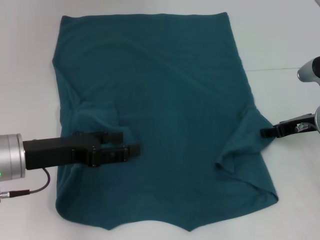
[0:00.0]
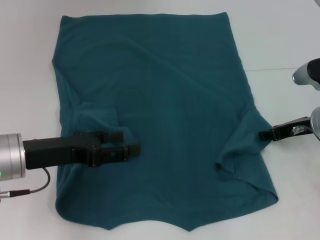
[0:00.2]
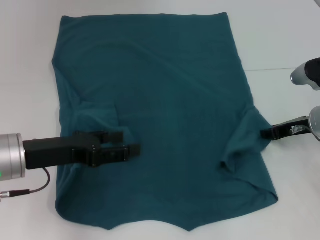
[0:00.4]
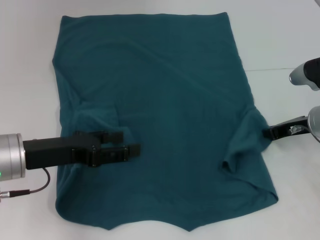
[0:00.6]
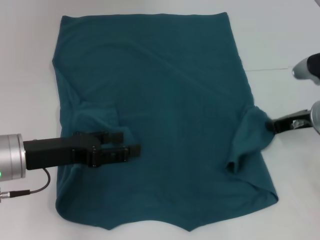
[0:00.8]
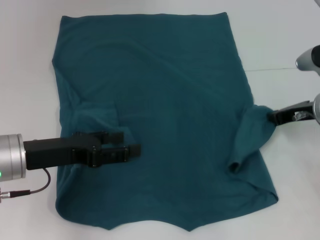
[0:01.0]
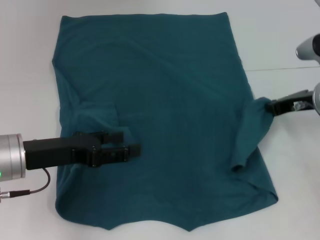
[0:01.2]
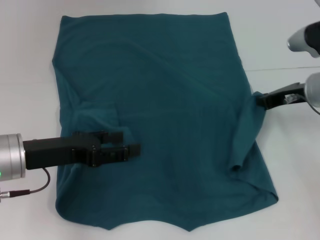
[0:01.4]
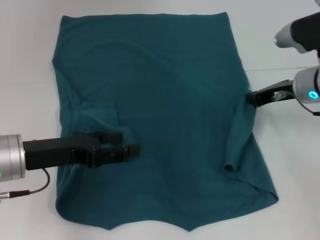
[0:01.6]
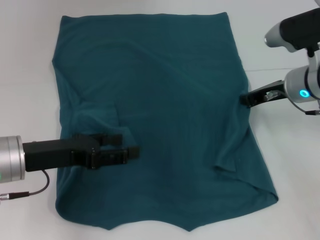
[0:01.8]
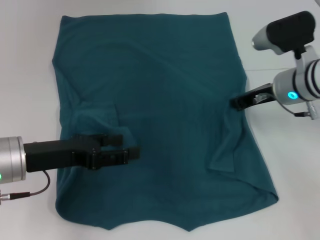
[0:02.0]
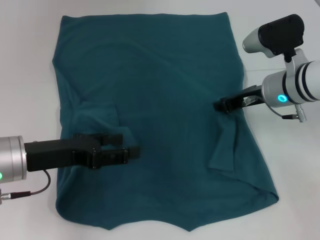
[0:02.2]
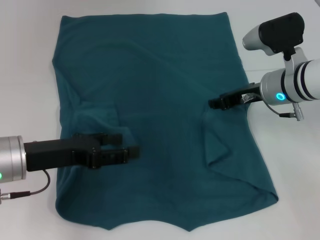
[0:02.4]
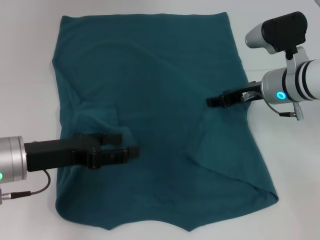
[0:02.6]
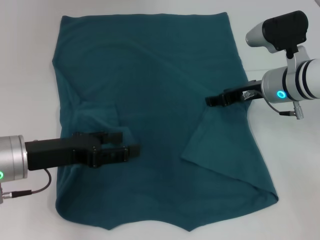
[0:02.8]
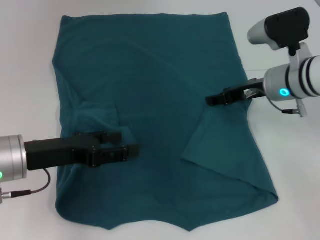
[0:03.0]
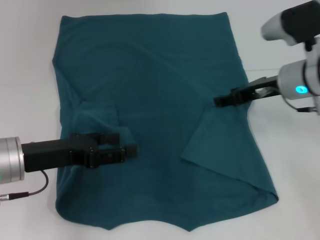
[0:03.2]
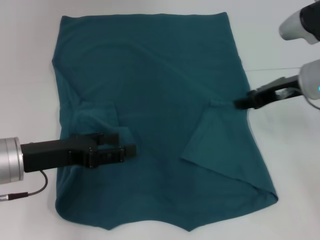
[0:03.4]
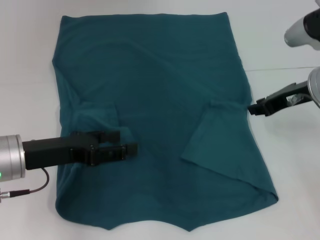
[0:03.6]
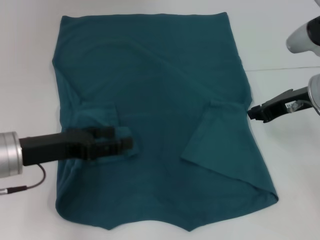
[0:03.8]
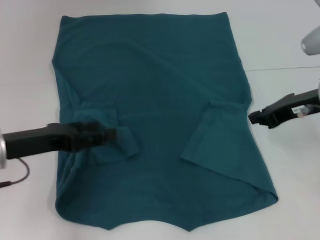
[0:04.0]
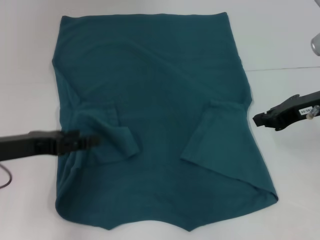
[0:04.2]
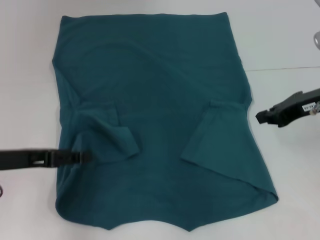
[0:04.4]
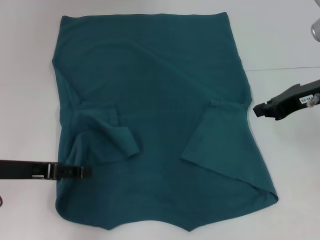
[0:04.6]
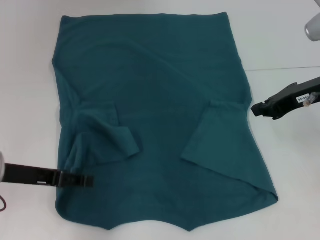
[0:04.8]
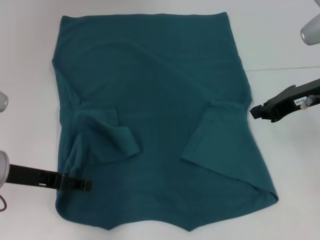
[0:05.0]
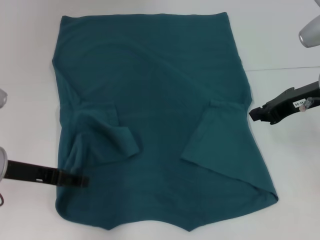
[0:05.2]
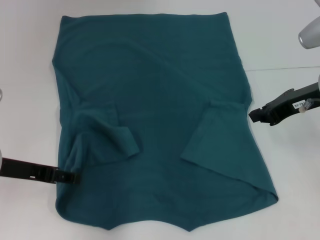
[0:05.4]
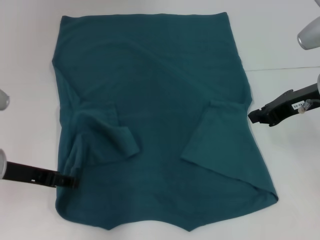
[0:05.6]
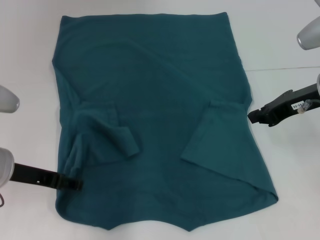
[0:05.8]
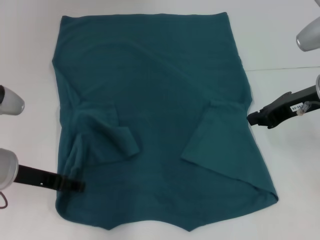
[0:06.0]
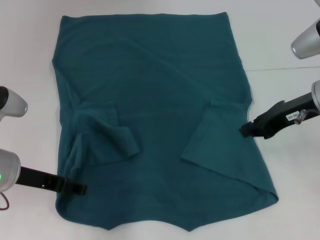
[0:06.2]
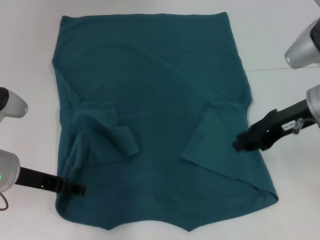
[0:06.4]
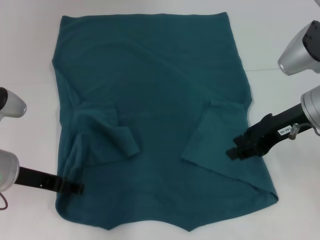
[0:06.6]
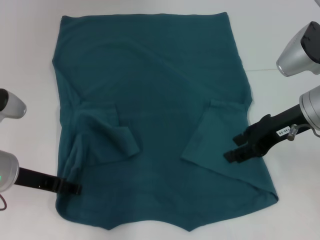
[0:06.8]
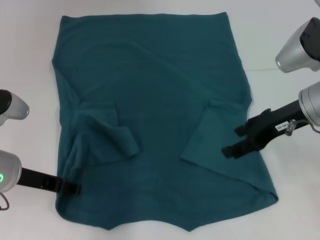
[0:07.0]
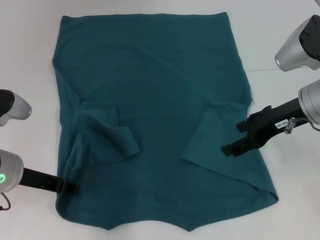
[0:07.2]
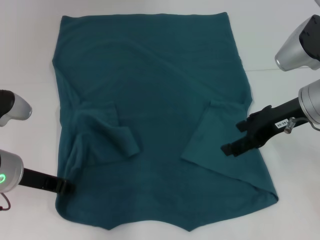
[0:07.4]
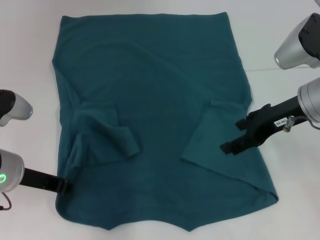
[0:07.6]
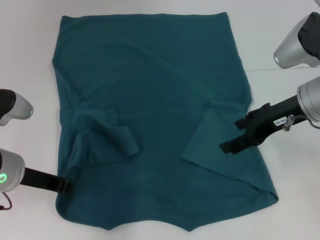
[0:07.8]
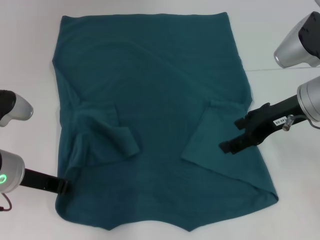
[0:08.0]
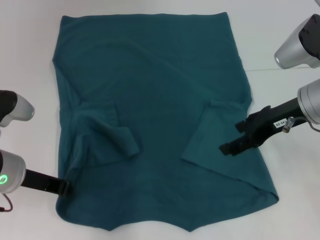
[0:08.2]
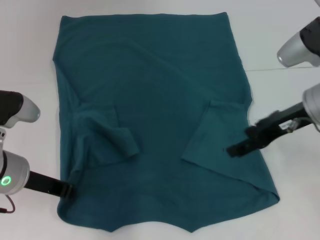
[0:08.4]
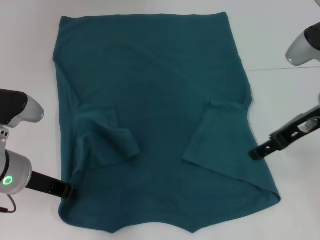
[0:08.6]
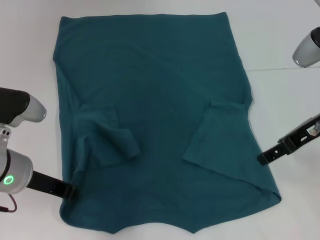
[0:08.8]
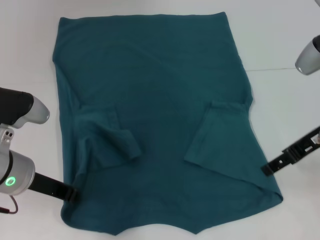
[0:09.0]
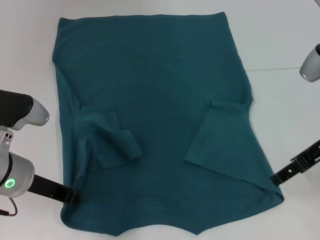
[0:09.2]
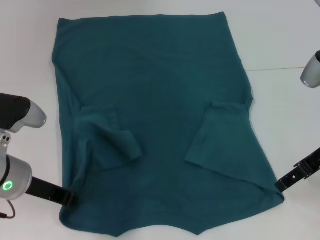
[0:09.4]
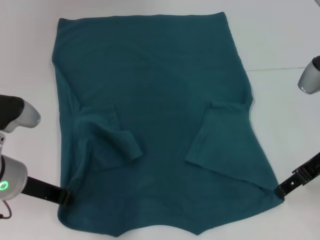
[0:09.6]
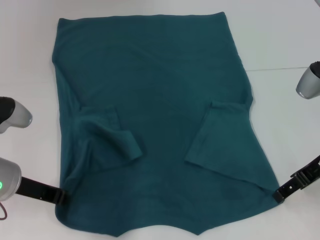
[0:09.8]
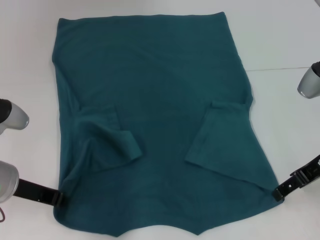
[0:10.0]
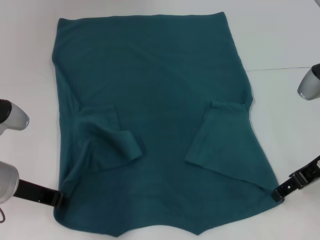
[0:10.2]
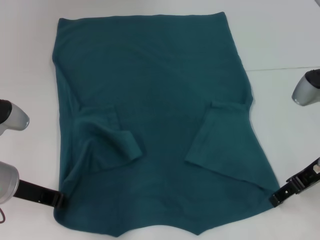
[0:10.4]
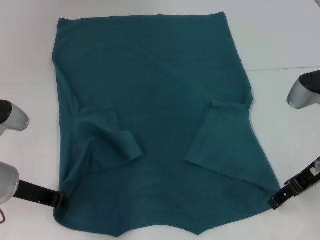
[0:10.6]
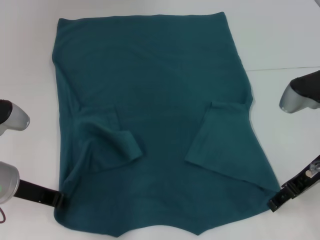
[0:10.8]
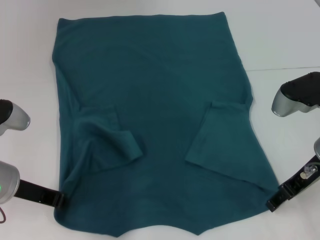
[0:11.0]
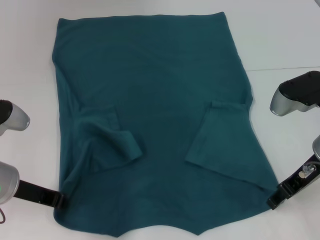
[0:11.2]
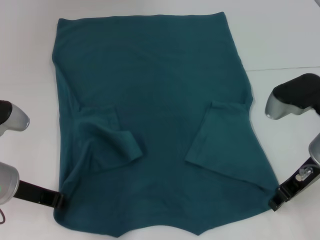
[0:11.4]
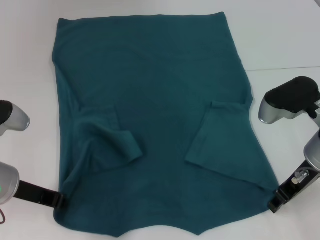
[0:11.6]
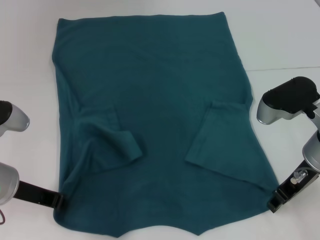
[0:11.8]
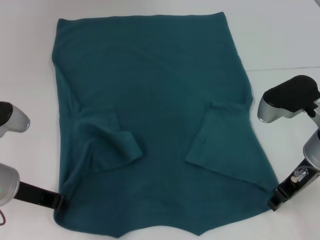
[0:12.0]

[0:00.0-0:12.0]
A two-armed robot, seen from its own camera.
Step, 0:00.0 to 0:02.8: Fold the bottom right sleeve to the right.
Step, 0:03.0 to 0:07.6: Grab the bottom left corner with your left hand.
0:00.0 to 0:01.6: The right gripper shifts by some 5 cm, and closes its fingers.
0:01.6 to 0:03.0: The right gripper opens.
0:03.0 to 0:04.4: The right gripper is displaced to the right and backward by roughly 10 cm, and closes up.
0:06.0 to 0:07.6: The left gripper closes; the right gripper opens up.
0:09.0 to 0:10.4: The grippers stay close to where they were, moving slightly.
0:10.4 to 0:12.0: The right gripper closes its fingers.

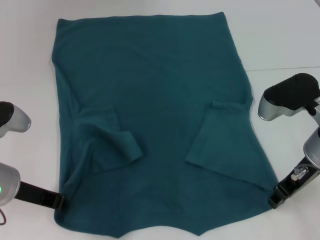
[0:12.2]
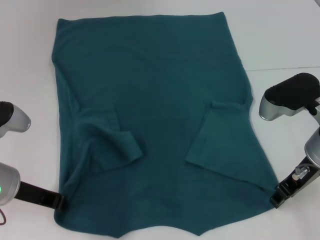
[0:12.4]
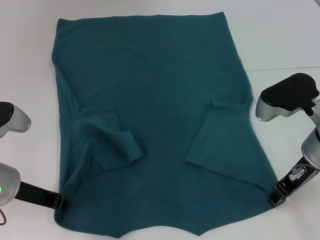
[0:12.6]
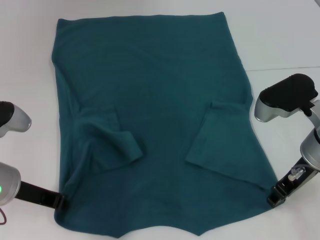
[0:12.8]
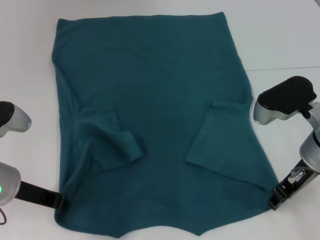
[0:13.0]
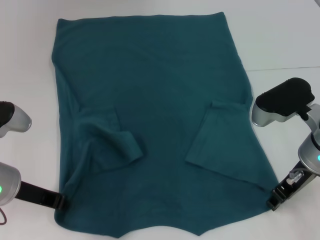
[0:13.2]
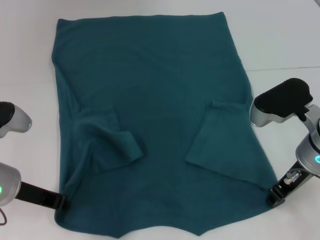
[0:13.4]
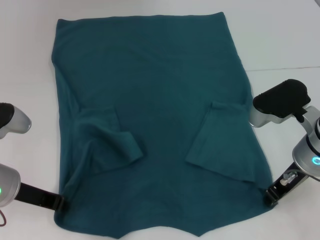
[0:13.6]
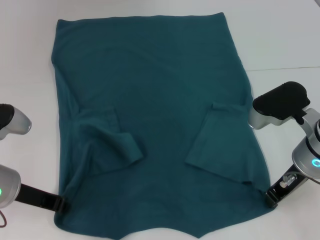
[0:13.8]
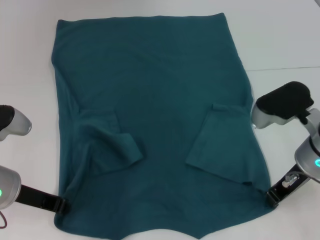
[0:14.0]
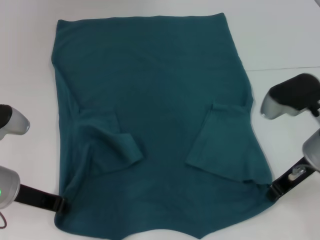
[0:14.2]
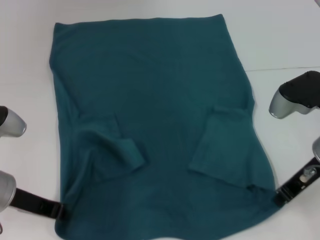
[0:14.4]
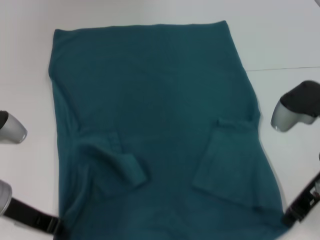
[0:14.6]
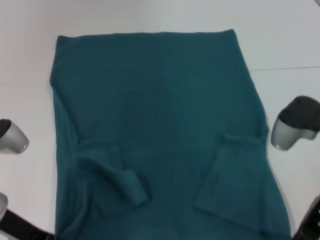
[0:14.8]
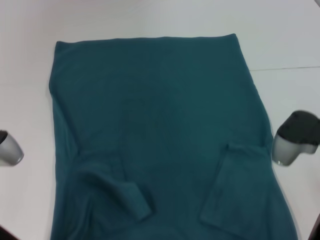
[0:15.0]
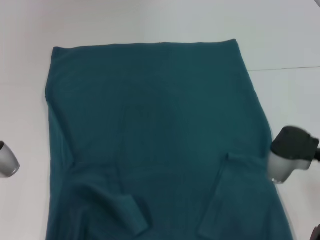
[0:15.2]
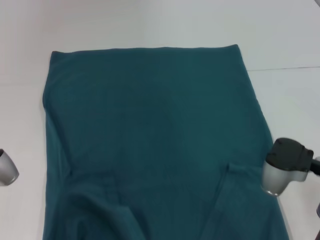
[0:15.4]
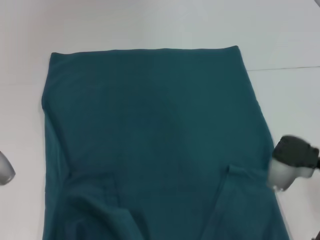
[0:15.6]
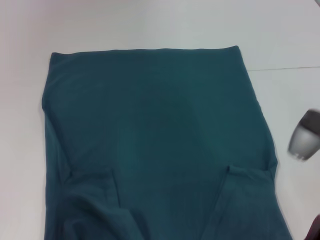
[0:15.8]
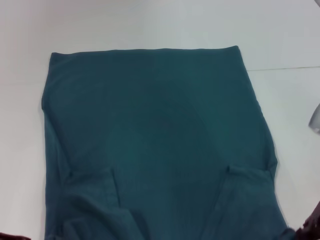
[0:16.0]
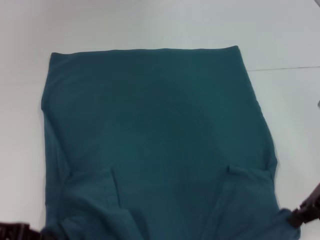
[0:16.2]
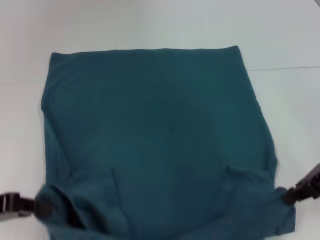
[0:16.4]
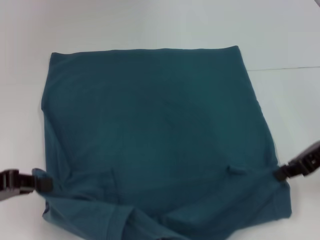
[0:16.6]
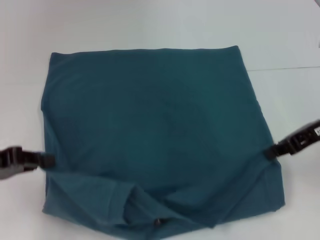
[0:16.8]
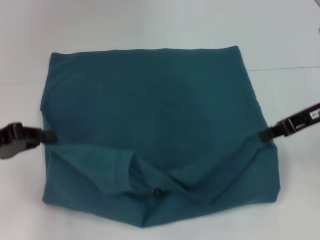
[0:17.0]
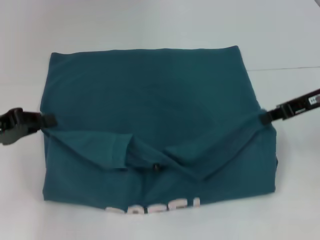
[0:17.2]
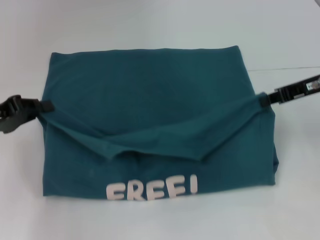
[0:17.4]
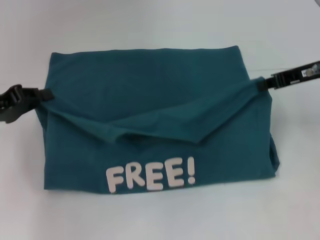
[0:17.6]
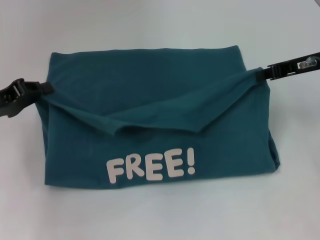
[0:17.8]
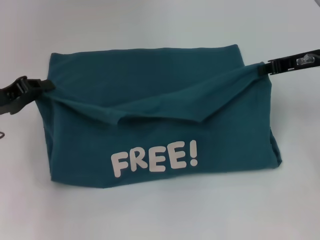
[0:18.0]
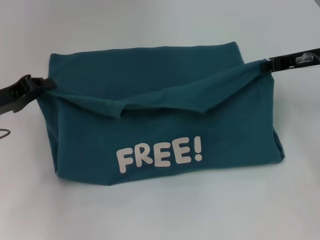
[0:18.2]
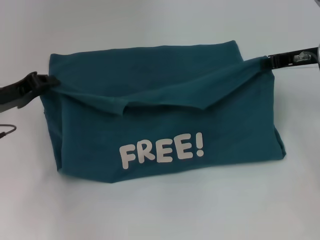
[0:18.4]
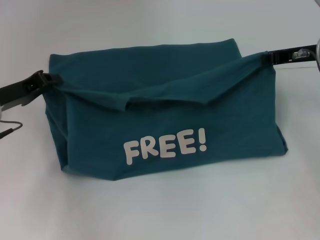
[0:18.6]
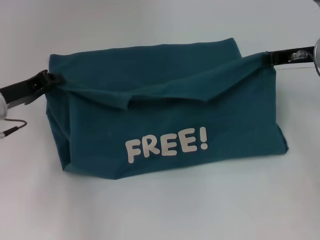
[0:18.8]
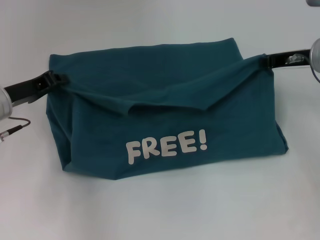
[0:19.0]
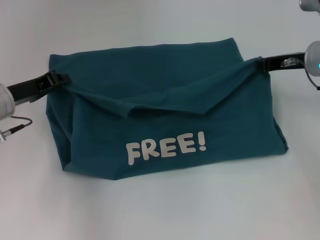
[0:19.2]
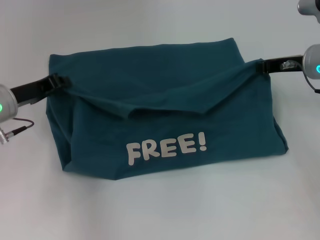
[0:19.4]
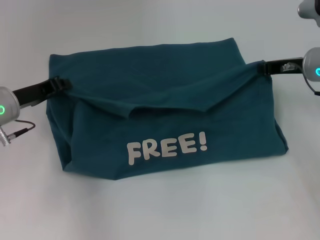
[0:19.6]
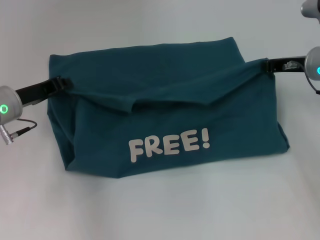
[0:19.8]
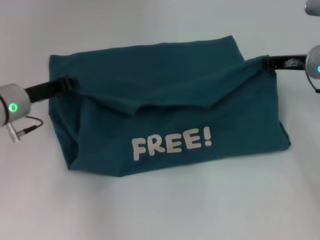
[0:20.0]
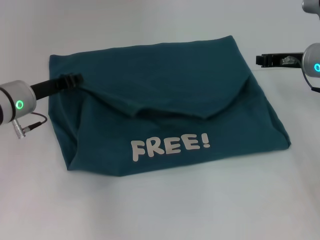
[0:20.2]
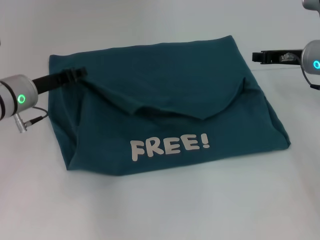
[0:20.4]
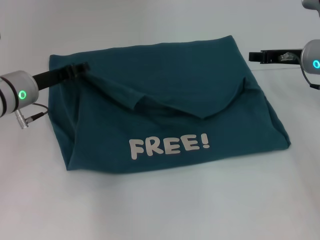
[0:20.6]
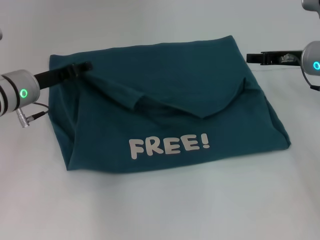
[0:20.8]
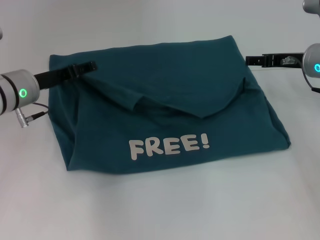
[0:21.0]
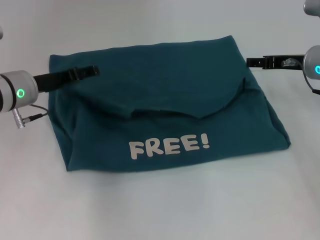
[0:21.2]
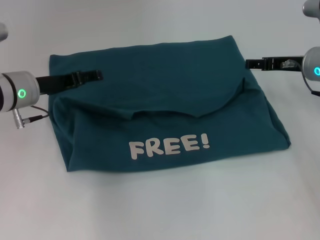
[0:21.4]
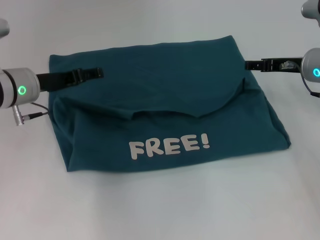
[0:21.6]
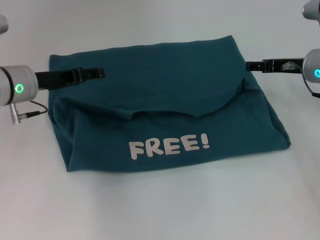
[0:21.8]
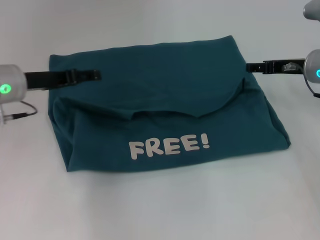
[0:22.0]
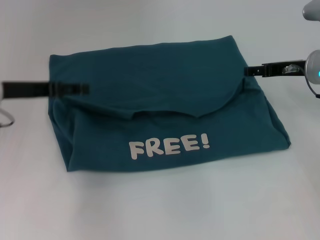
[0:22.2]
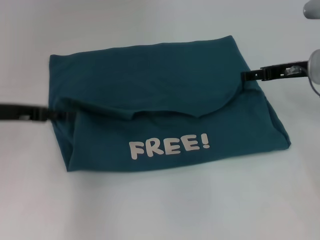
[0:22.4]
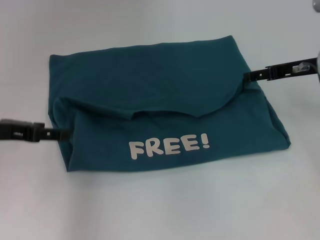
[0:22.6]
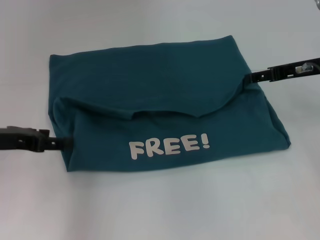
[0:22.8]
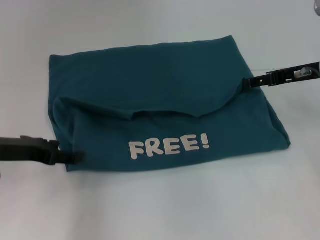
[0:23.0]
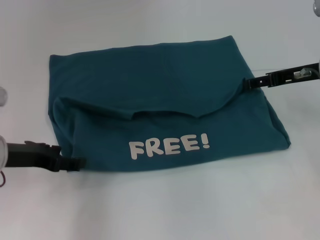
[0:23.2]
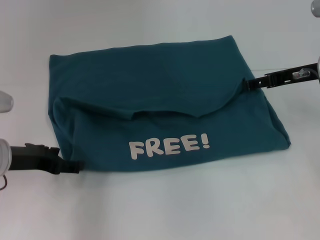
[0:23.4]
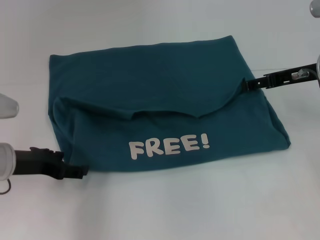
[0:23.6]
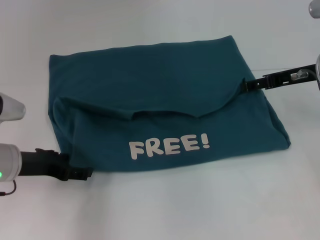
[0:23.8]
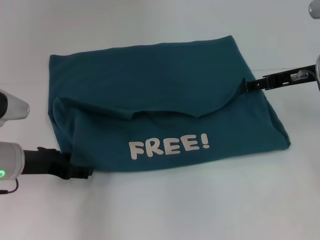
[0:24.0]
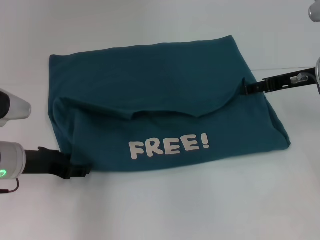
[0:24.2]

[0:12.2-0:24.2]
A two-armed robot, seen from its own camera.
Step, 0:14.2 to 0:20.8: Fold the clothes to the right.
Step, 0:21.0 to 0:21.2: Fold the clothes to the left.
0:12.2 to 0:13.8: The right gripper closes up.
0:13.8 to 0:15.2: The left gripper shifts by about 5 cm; the right gripper shifts some 5 cm backward.
0:15.2 to 0:16.6: The right gripper goes about 10 cm to the right and upward; the left gripper heads to the left, covering roughly 5 cm.
0:16.6 to 0:18.2: Both grippers move forward, some 10 cm.
0:18.2 to 0:19.8: The left gripper moves approximately 5 cm.
0:19.8 to 0:21.2: The right gripper opens its fingers, while the left gripper opens its fingers.
0:21.2 to 0:22.6: The left gripper moves backward and to the left, approximately 10 cm.
0:22.6 to 0:24.2: The left gripper goes approximately 5 cm downward.
